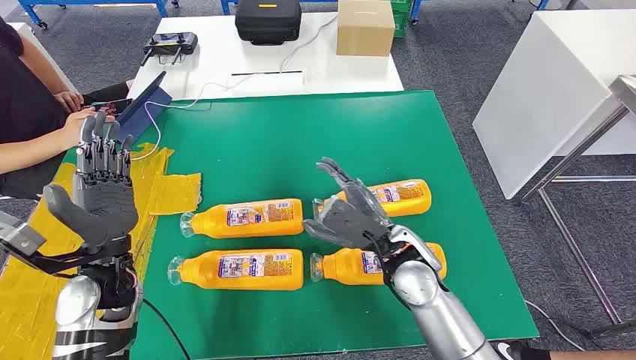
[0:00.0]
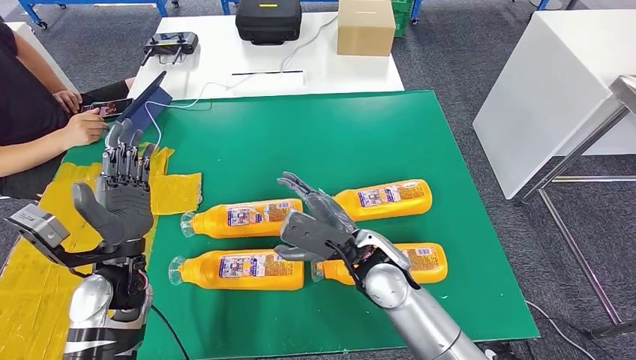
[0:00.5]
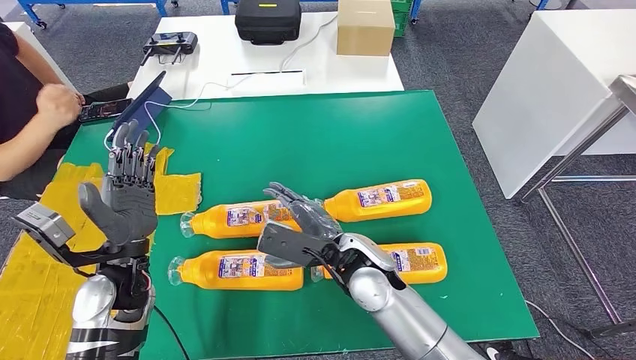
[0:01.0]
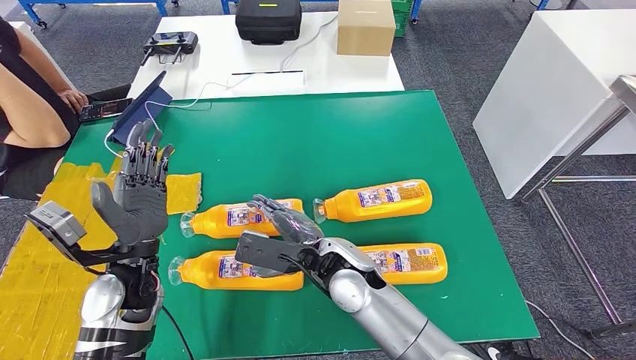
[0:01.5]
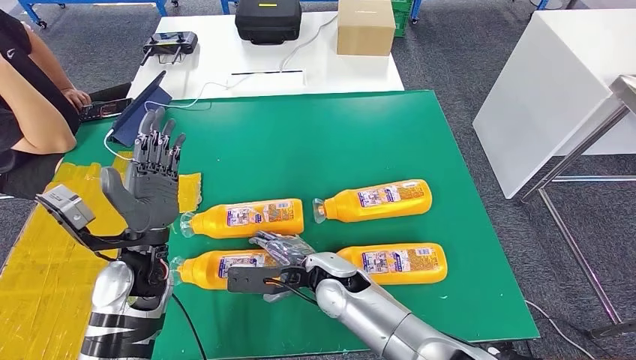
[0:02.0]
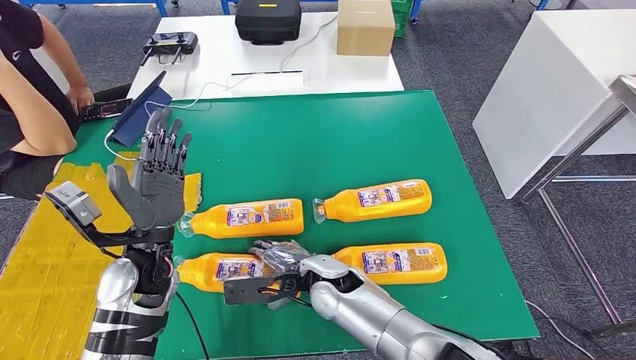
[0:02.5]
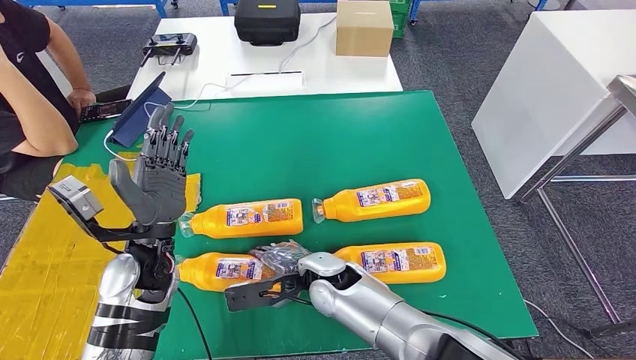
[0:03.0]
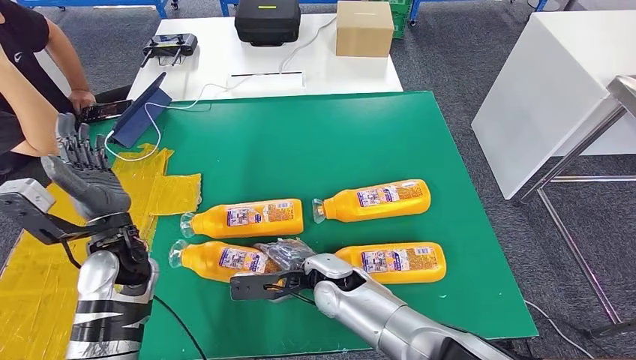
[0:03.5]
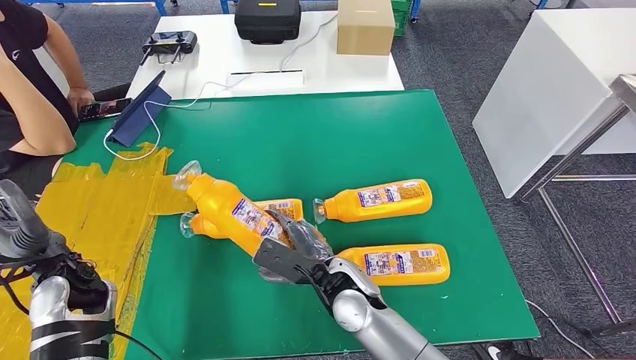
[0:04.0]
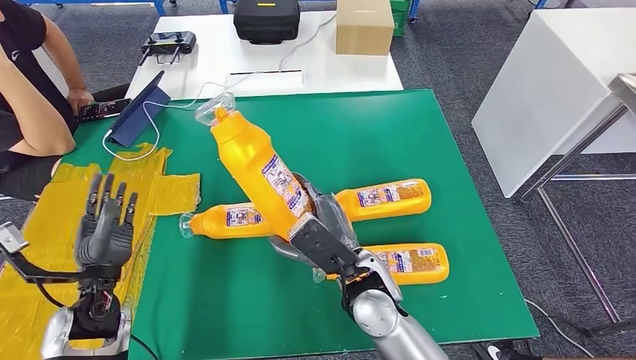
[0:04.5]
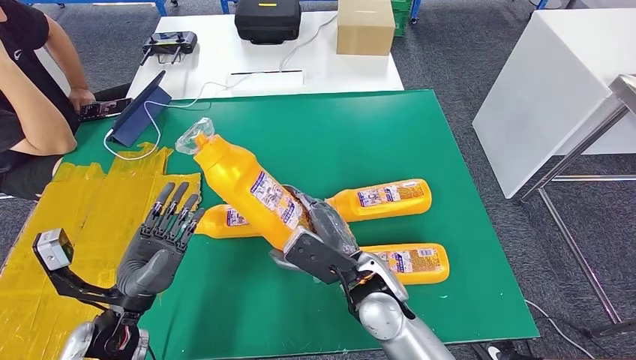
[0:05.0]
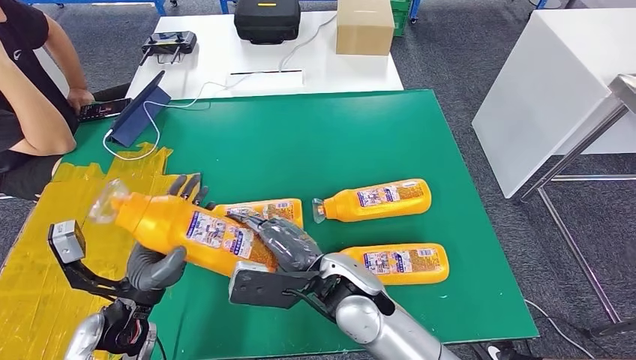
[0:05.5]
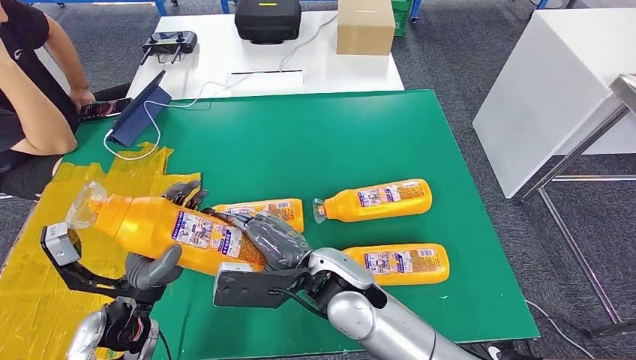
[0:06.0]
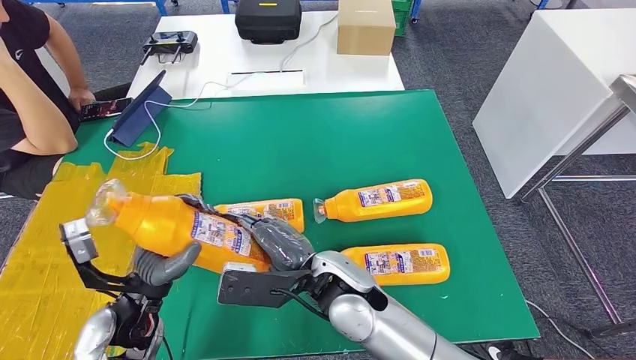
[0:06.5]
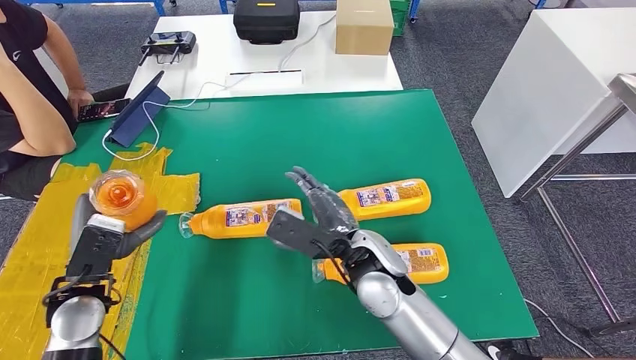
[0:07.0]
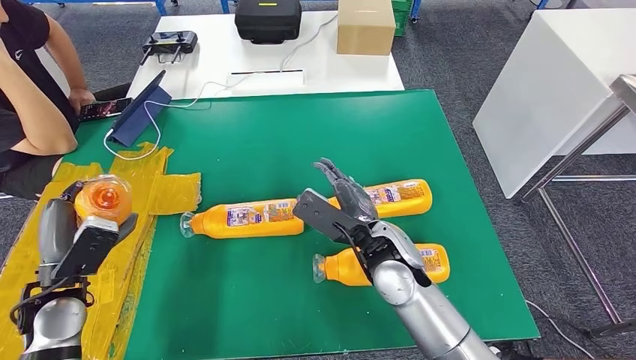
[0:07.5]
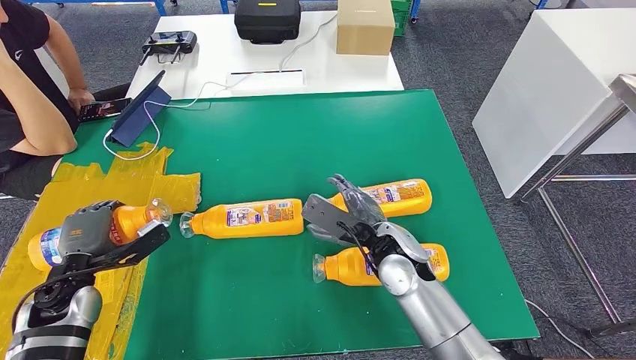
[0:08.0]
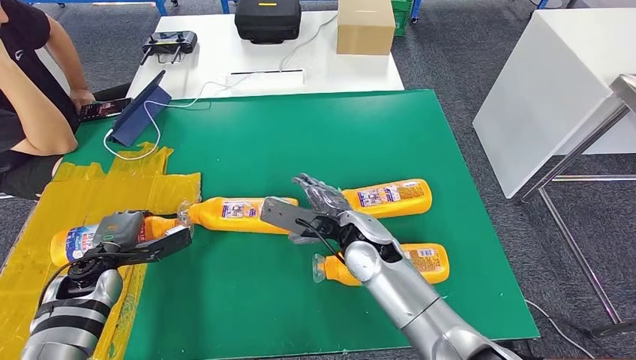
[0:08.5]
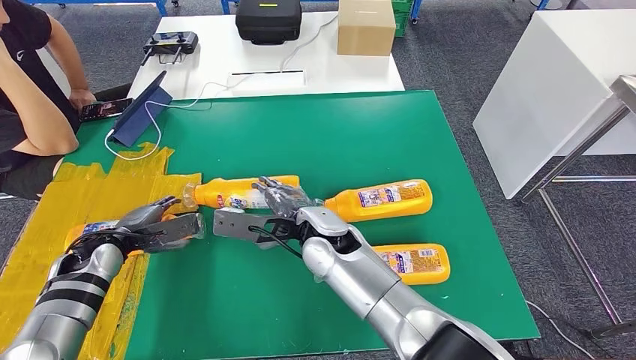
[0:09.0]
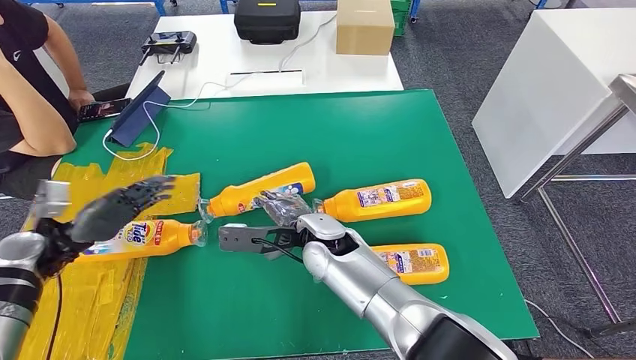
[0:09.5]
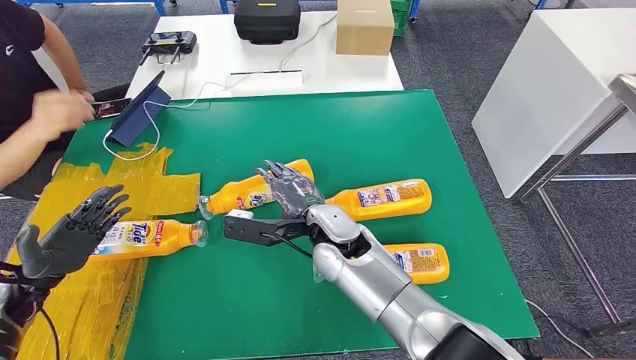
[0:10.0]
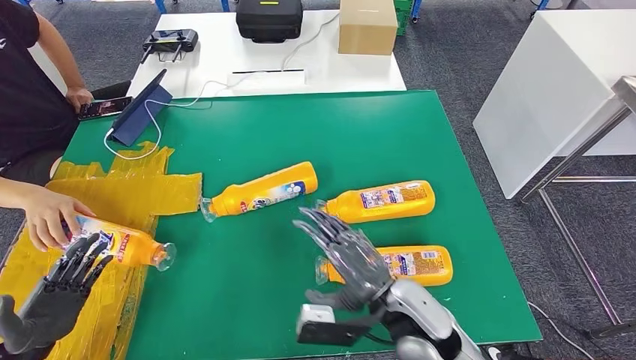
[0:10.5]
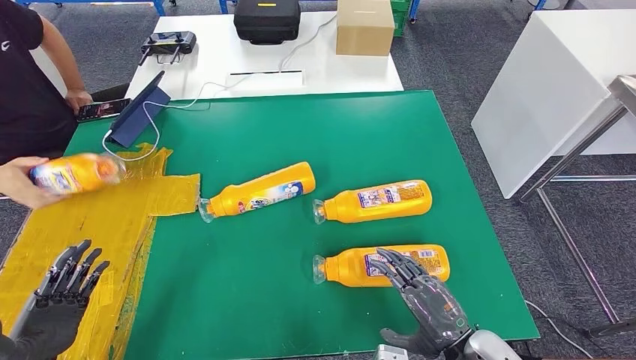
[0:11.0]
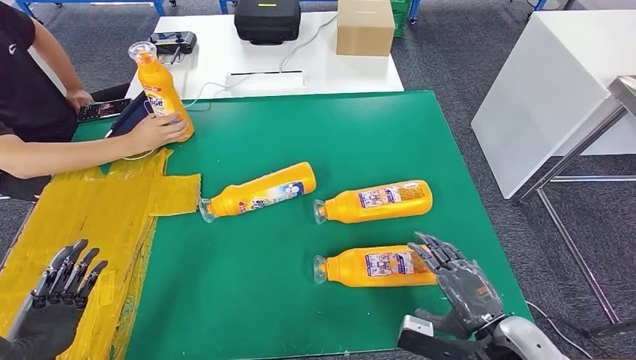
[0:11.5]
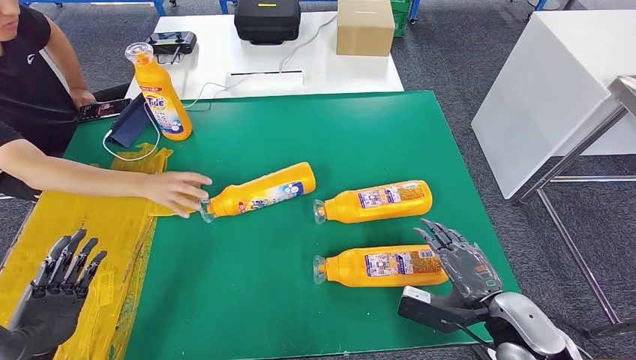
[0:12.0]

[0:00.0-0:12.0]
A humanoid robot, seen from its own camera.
Step, 0:00.0 to 0:05.0: Take the fast-moving consumer goods bottle from the table.
Step, 0:06.0 to 0:09.0: Flip the fast-moving consumer goods bottle to the front side.
0:04.0 to 0:06.0: The left hand goes roughly 10 cm to the right and backward, while the right hand goes about 10 cm upward.

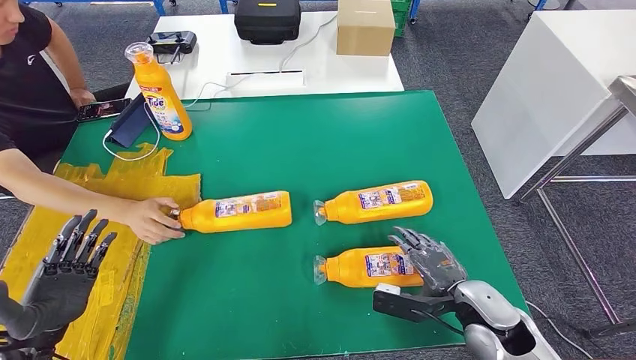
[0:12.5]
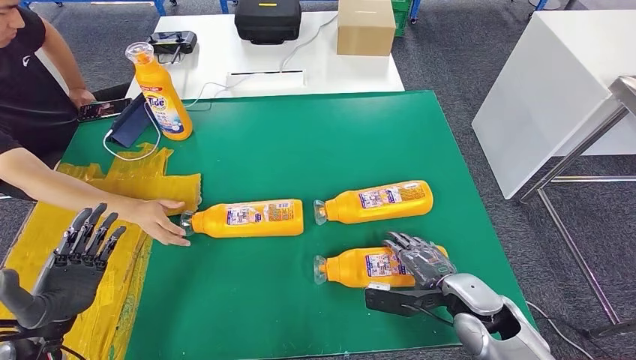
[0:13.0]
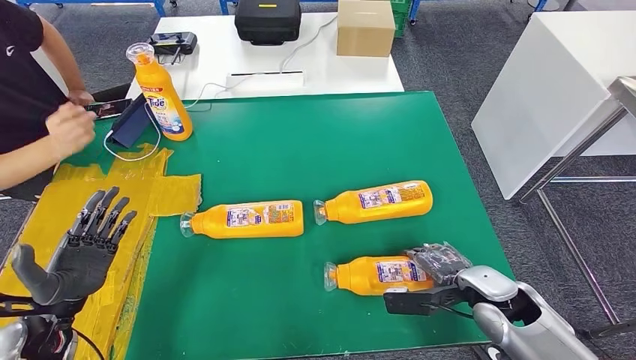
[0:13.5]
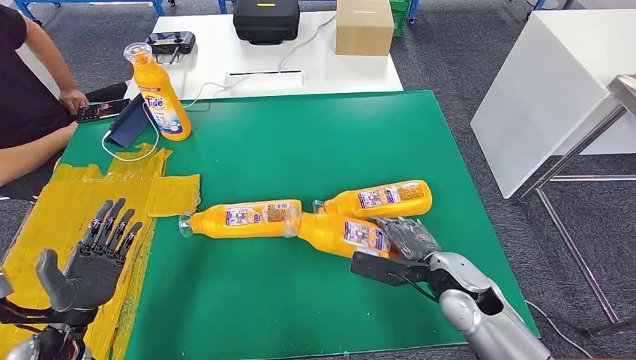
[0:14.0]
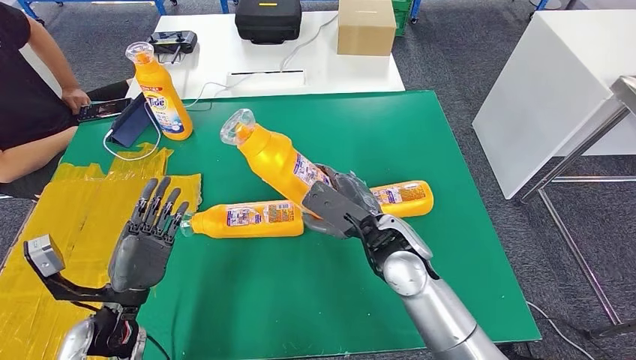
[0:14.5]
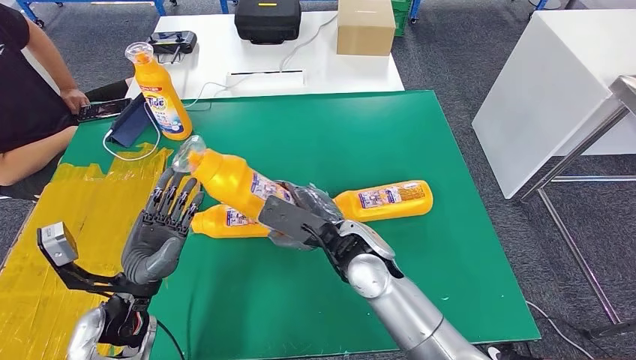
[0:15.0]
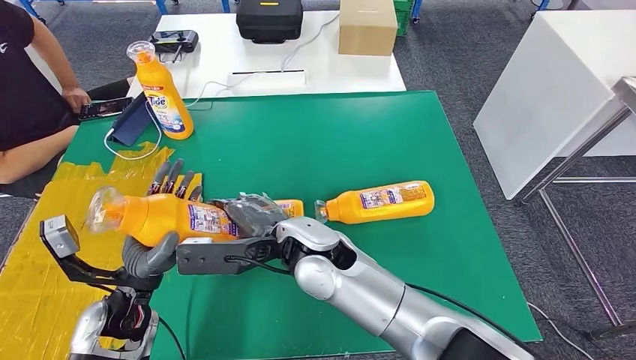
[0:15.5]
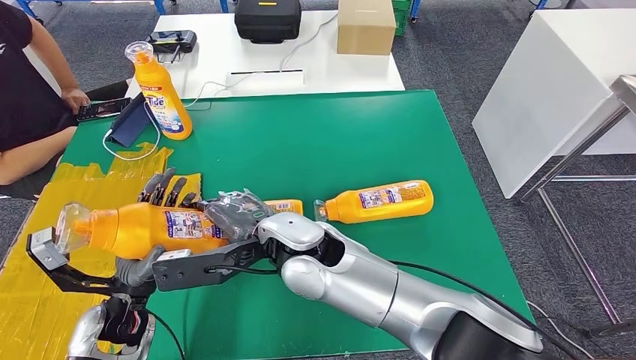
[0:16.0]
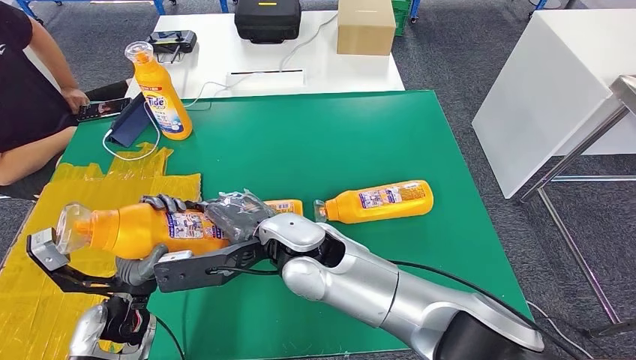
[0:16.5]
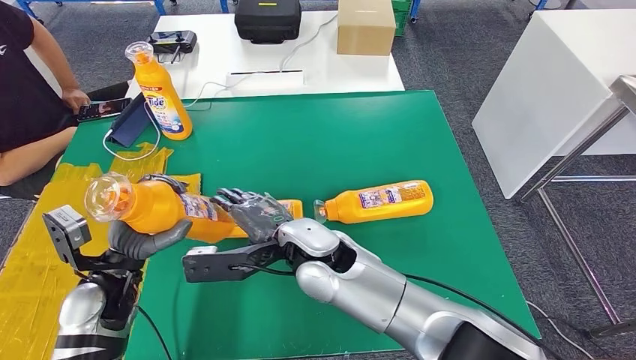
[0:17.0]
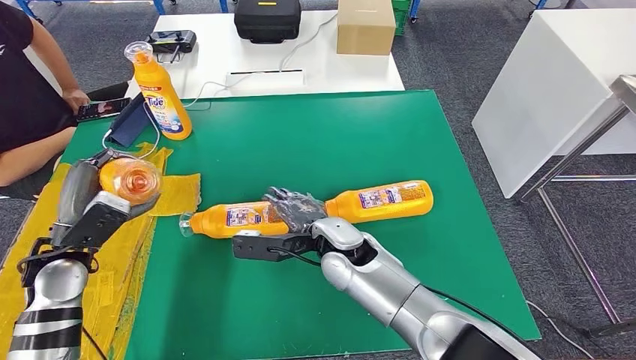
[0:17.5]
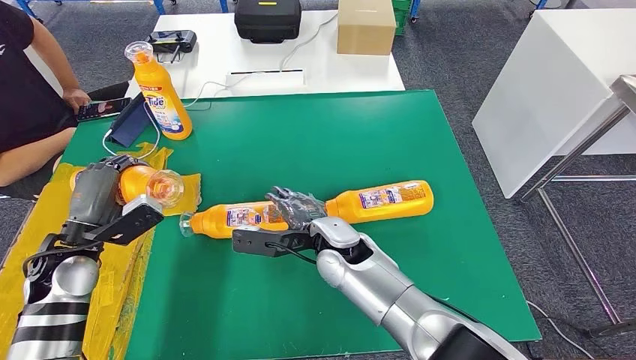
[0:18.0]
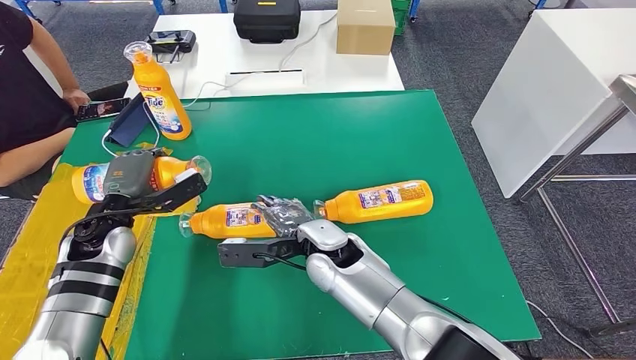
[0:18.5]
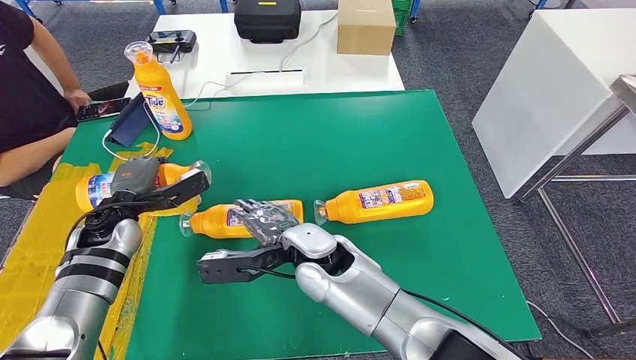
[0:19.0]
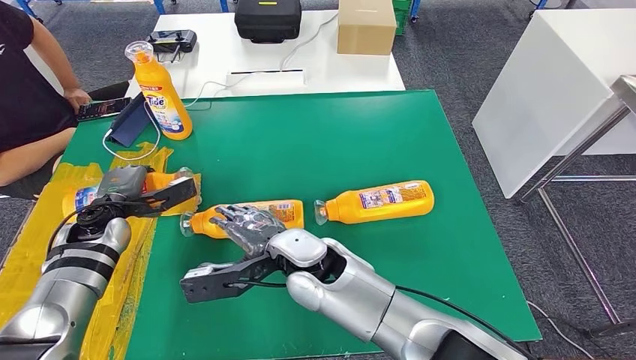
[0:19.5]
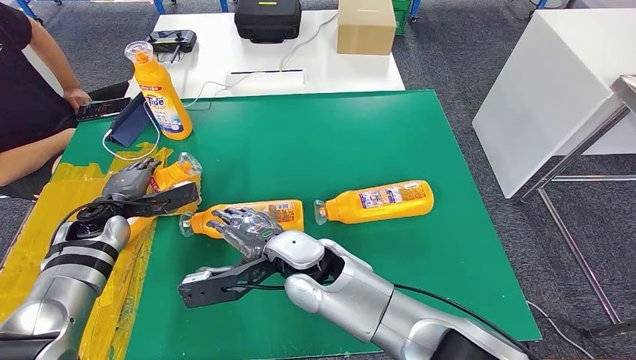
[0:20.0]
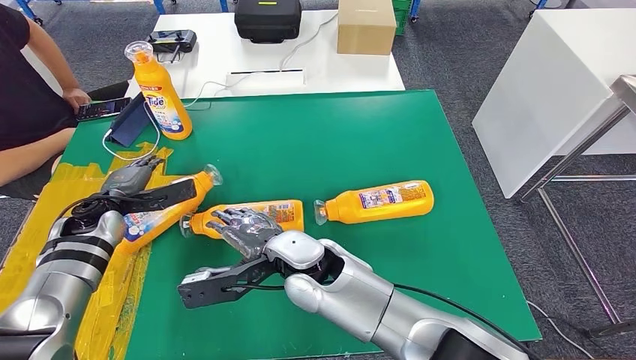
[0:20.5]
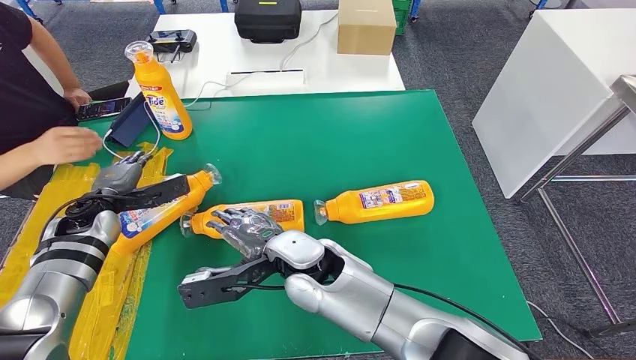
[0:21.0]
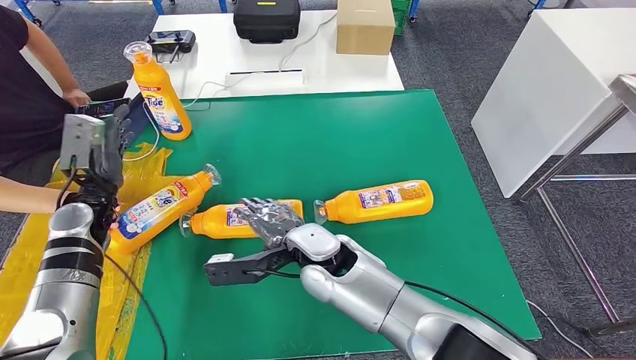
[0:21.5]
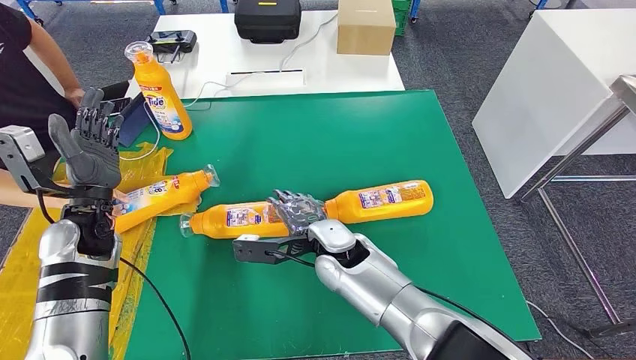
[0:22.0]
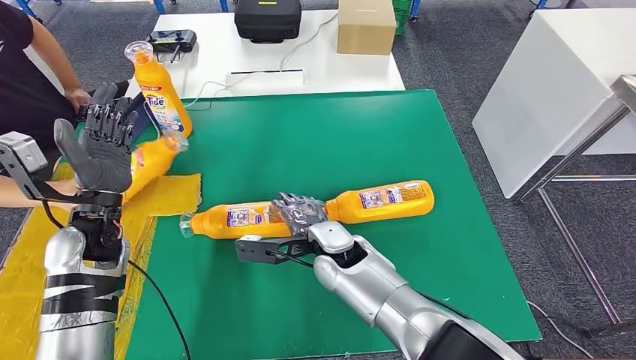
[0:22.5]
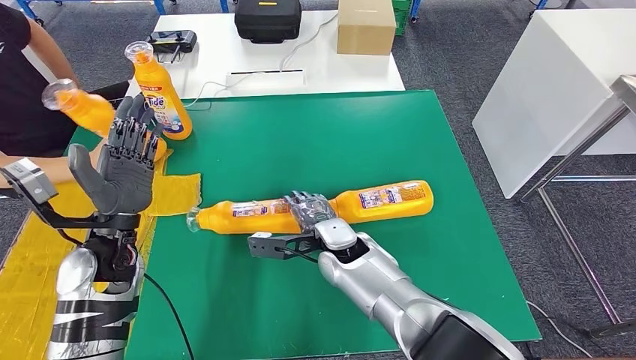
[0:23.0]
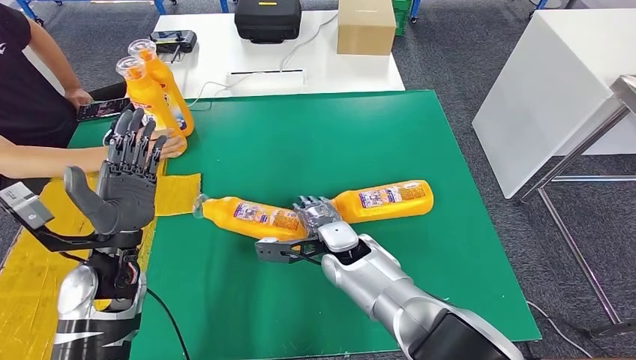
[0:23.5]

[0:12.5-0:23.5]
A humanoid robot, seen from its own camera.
Step, 0:12.5 to 0:15.5: Pick up the fast-moving consumer goods bottle from the table.
Step, 0:16.0 to 0:20.5: Flip the fast-moving consumer goods bottle to the front side.
0:18.0 to 0:20.0: The right hand heads to the left and backward, covering about 5 cm. Meanwhile the left hand is displaced forward by approximately 10 cm.
